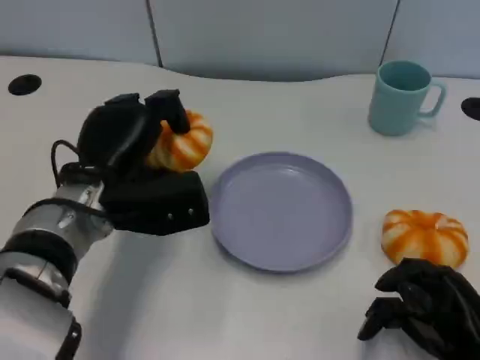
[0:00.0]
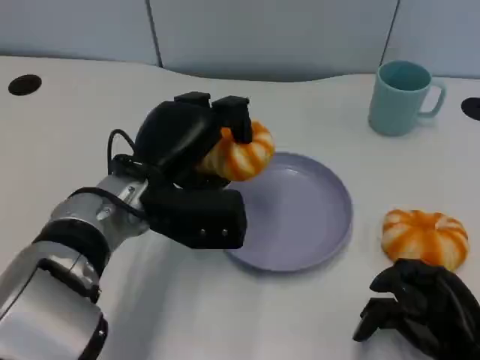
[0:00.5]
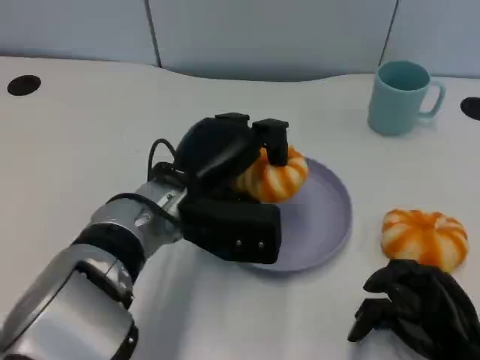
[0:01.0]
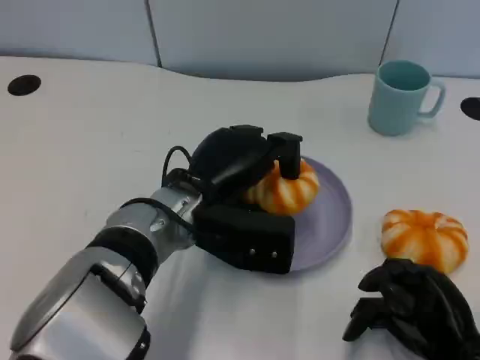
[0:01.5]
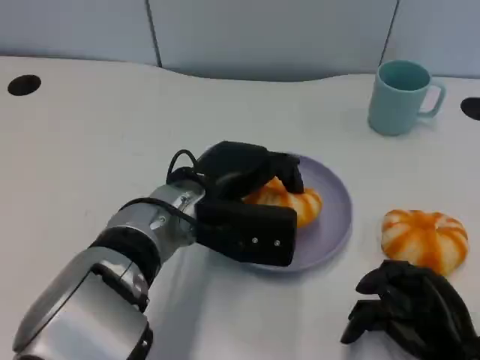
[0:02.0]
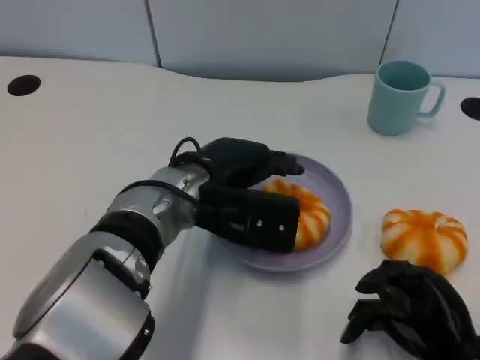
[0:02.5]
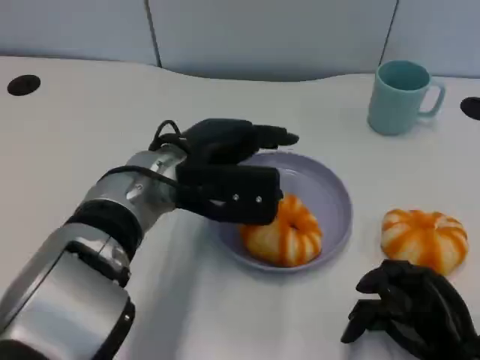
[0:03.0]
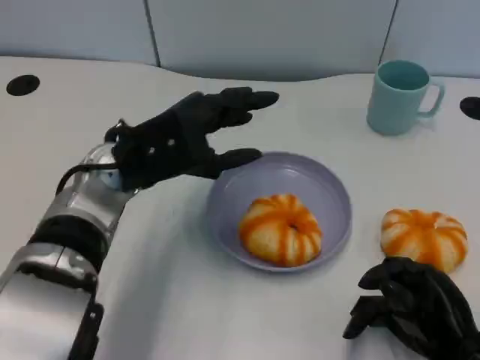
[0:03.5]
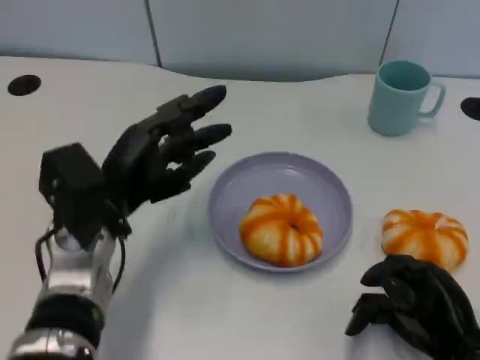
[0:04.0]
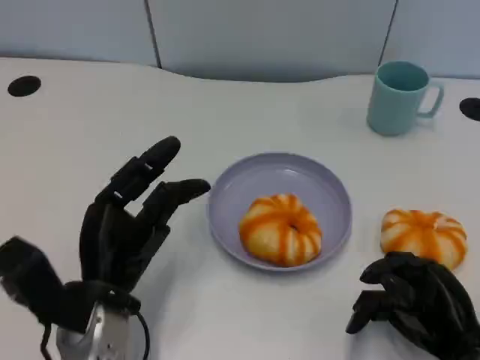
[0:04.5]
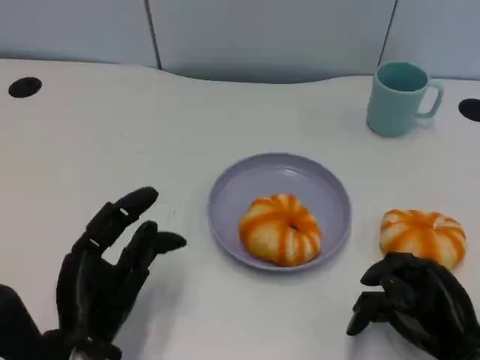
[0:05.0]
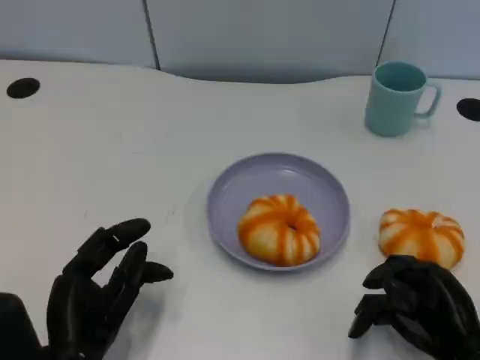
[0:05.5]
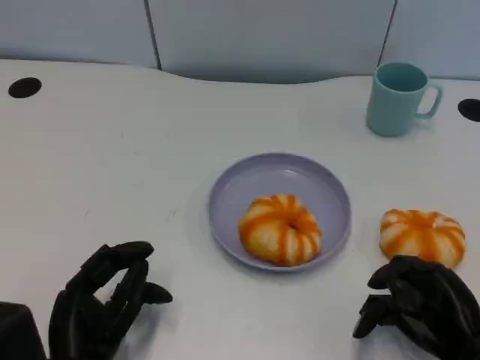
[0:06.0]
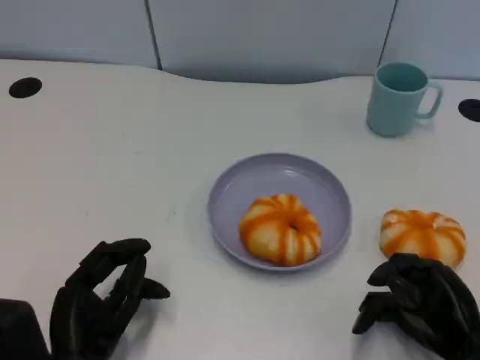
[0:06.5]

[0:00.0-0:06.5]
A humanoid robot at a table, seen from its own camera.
Task of the whole recording: Grasp the bread from the table and place it into the plate.
0:00.0 to 0:02.0: The left hand moves to the right, approximately 10 cm.
0:02.0 to 0:04.5: The left hand travels to the left, backward and downward by some 15 cm.
0:04.5 to 0:06.5: The left hand is displaced backward by about 5 cm.

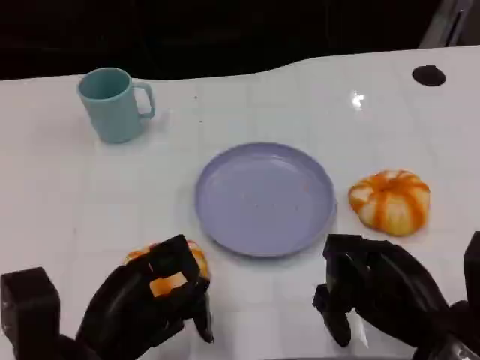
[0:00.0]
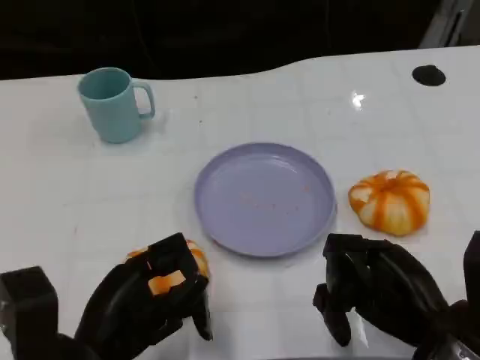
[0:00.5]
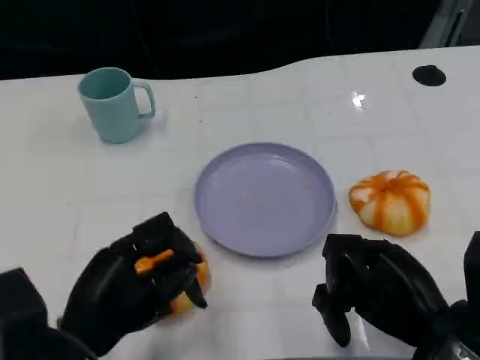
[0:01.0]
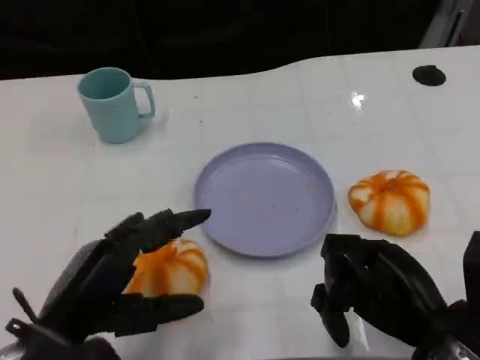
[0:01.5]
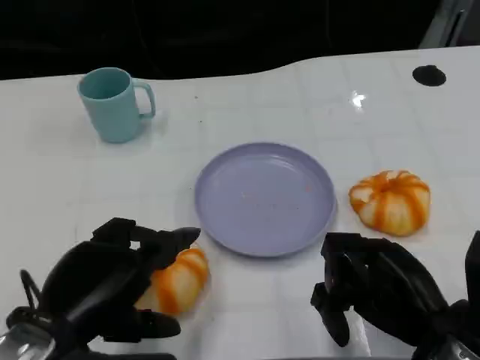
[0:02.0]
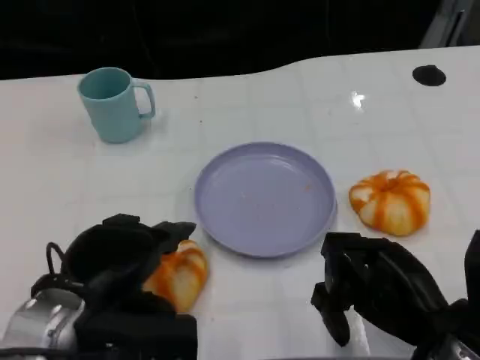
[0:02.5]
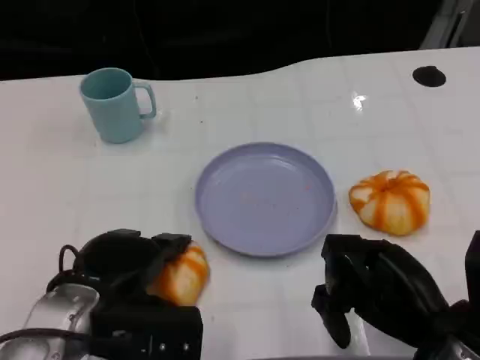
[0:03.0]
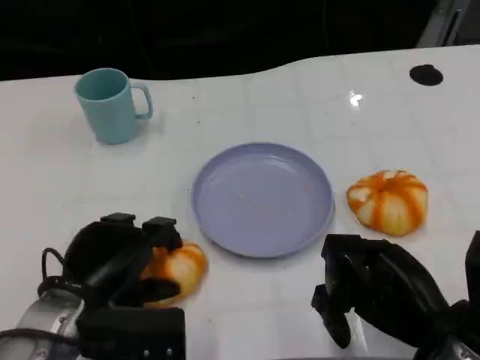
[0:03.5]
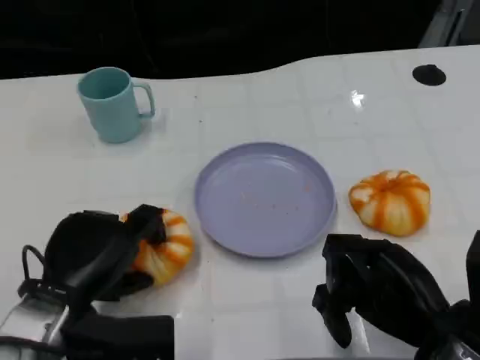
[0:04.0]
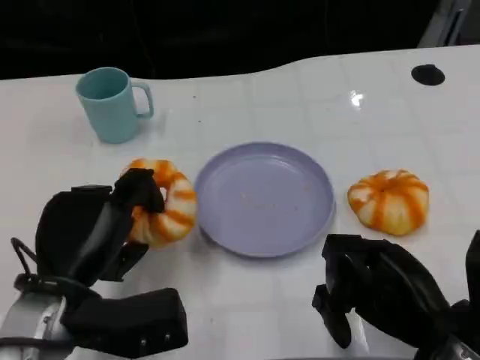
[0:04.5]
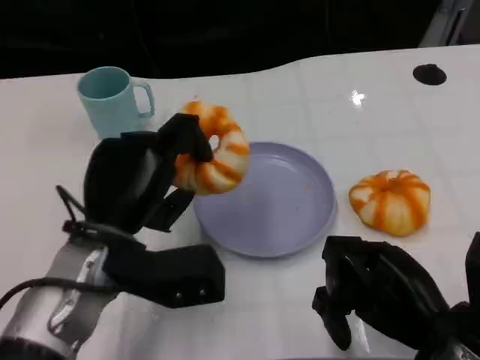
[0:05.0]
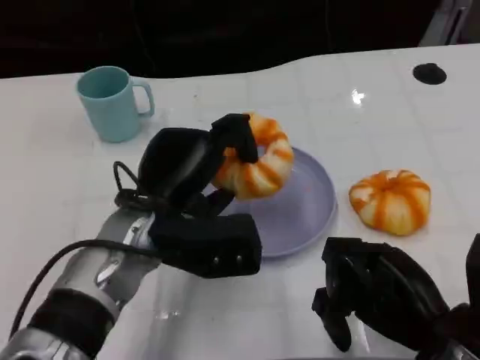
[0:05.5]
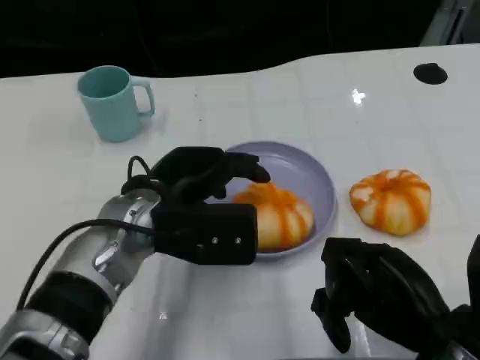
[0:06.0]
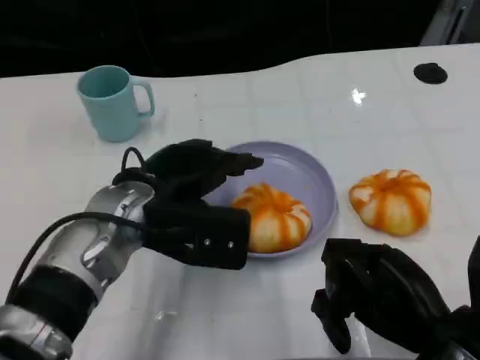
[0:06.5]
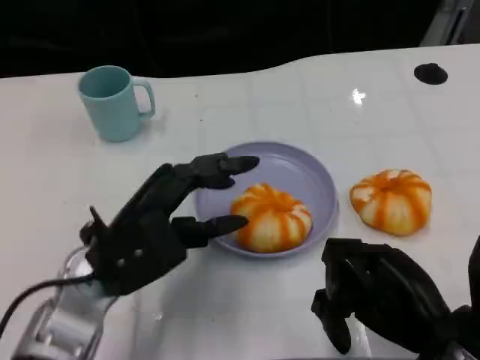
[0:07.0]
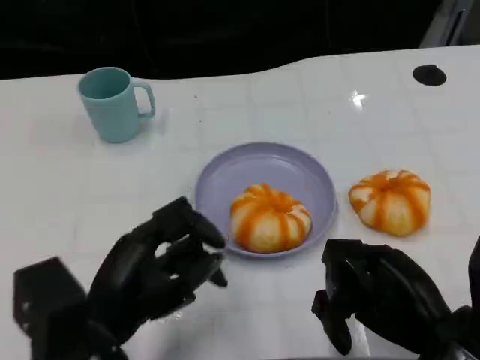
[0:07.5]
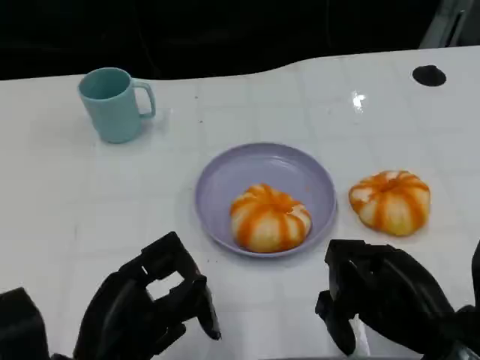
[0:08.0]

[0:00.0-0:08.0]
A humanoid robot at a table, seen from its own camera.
Task of the whole recording: Grasp the bread from the table and place it into the plate.
0:02.0 to 0:04.0: The left hand moves roughly 5 cm.
0:04.0 to 0:06.0: The left hand heads to the right, forward and upward, covering roughly 15 cm.
0:06.0 to 0:08.0: The left hand is displaced backward and to the left by approximately 15 cm.

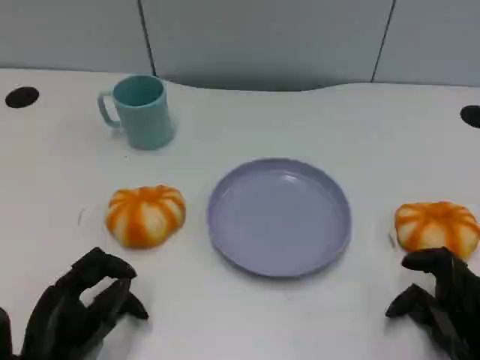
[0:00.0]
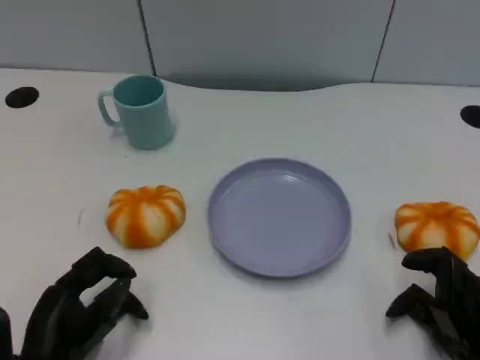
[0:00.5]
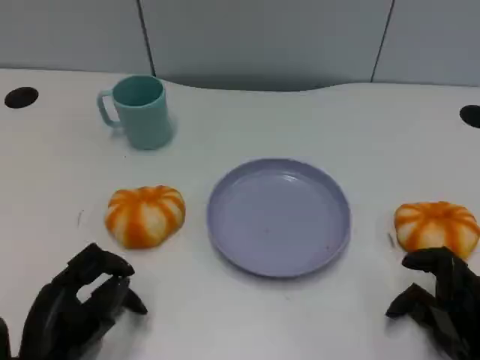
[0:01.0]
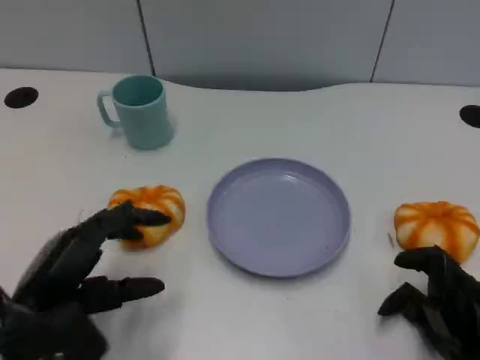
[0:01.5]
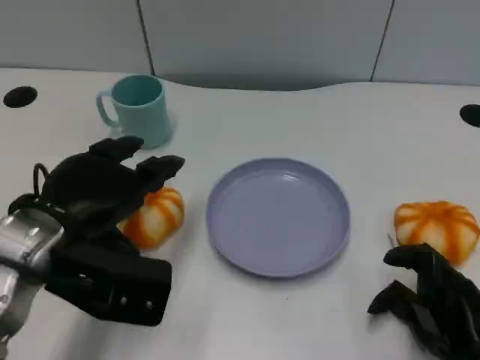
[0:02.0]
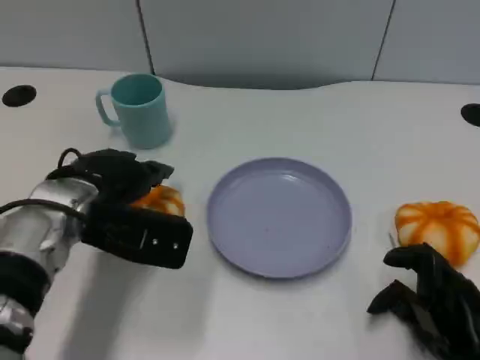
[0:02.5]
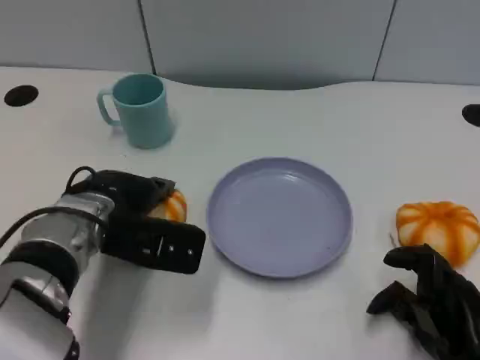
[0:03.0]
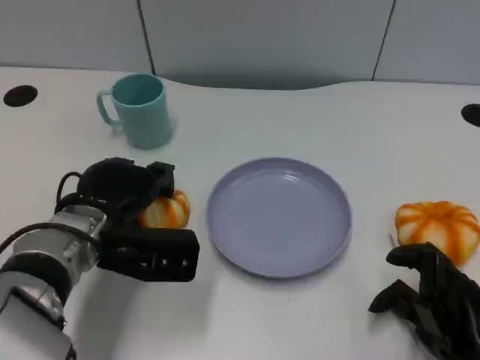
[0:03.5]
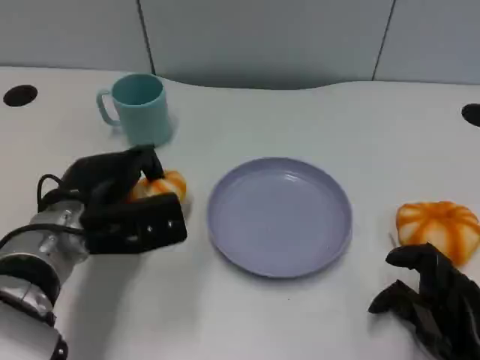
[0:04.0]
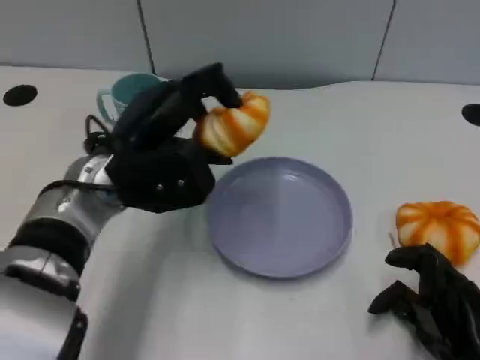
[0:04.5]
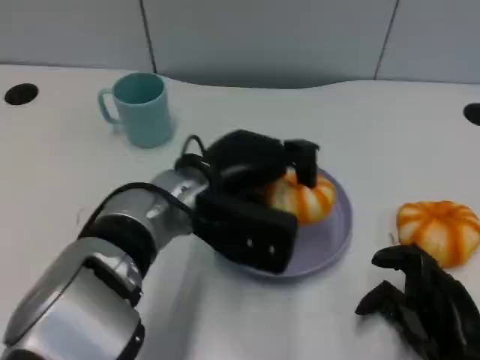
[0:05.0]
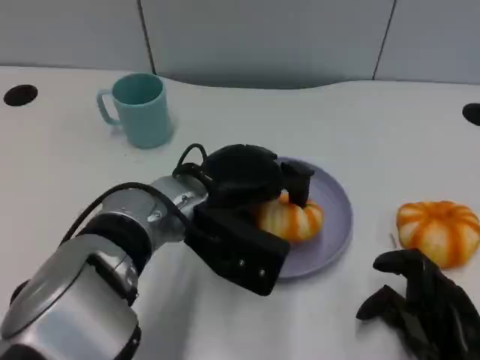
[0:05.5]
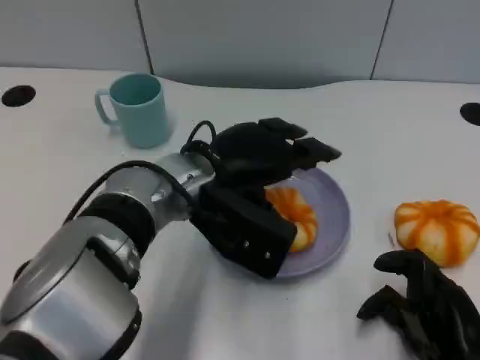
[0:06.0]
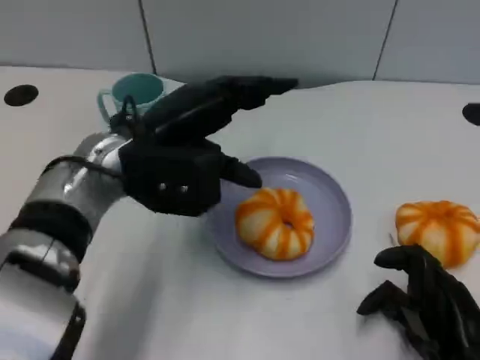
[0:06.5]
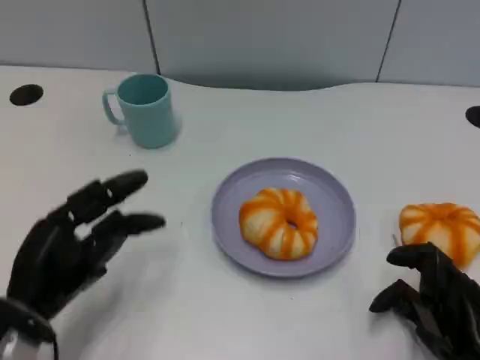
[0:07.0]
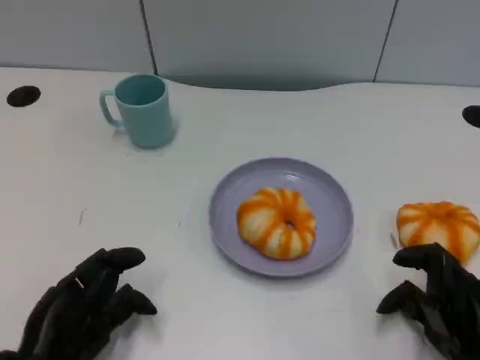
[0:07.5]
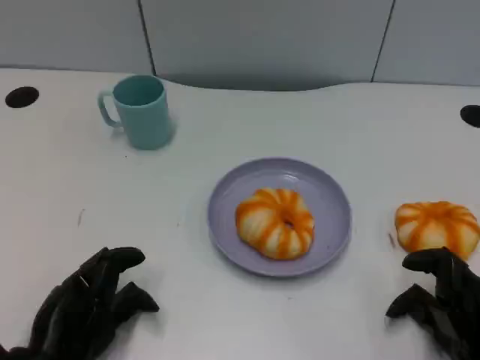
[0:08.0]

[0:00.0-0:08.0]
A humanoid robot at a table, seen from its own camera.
Task of the whole recording: Grasp the bread from the table and place it into the plate.
0:00.0 to 0:02.0: The left hand shifts roughly 15 cm upward and forward.
0:02.0 to 0:04.0: The left hand heads downward and forward, covering about 10 cm.
0:04.0 to 0:06.0: The left hand heads to the right and upward, covering about 15 cm.
0:06.0 to 0:08.0: The left hand goes approximately 25 cm to the left, backward and downward.
